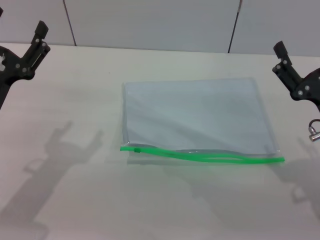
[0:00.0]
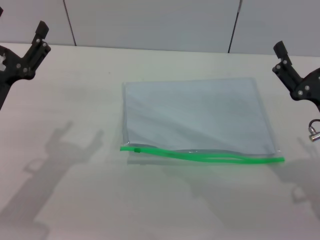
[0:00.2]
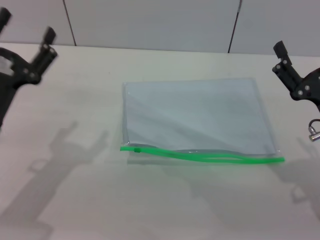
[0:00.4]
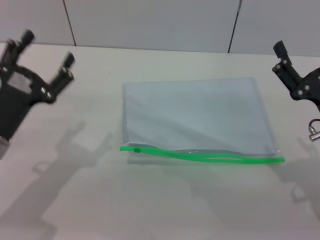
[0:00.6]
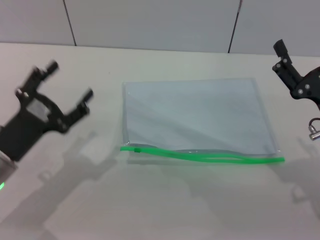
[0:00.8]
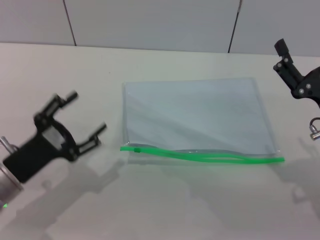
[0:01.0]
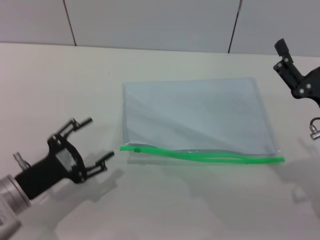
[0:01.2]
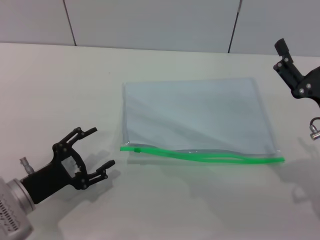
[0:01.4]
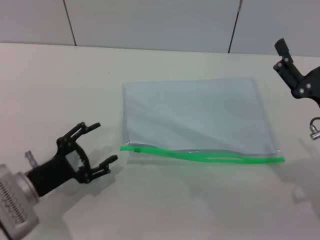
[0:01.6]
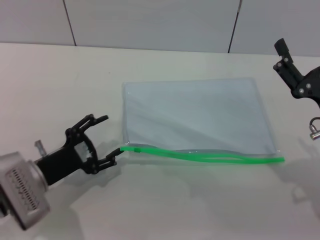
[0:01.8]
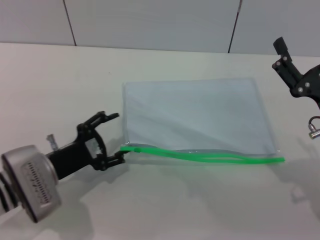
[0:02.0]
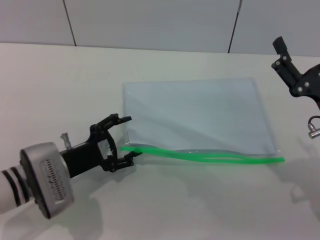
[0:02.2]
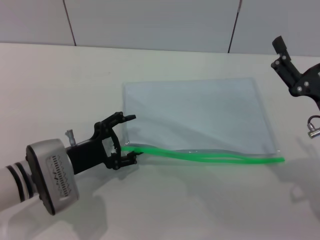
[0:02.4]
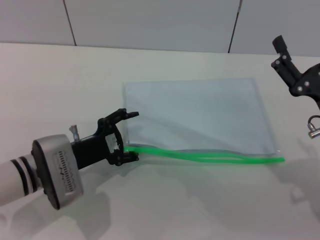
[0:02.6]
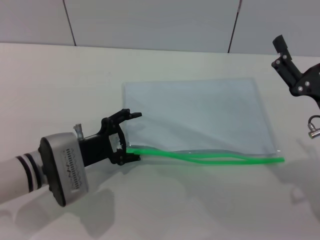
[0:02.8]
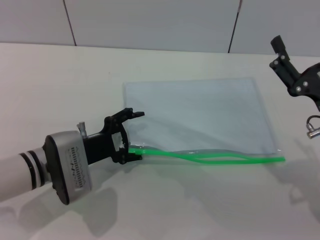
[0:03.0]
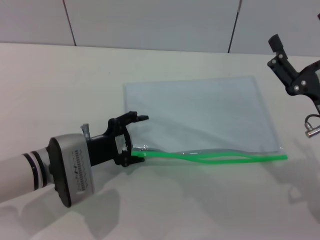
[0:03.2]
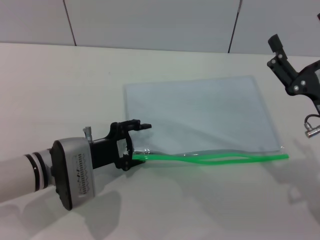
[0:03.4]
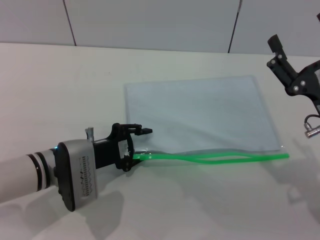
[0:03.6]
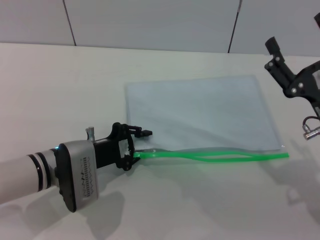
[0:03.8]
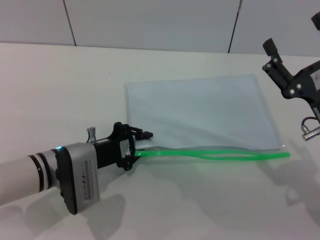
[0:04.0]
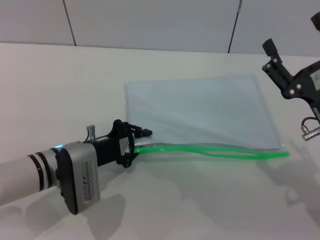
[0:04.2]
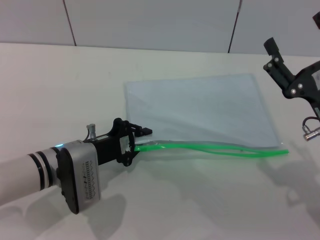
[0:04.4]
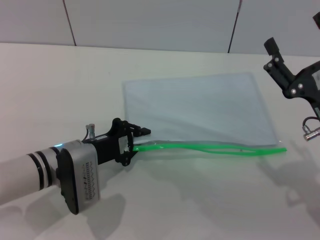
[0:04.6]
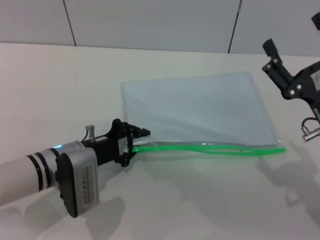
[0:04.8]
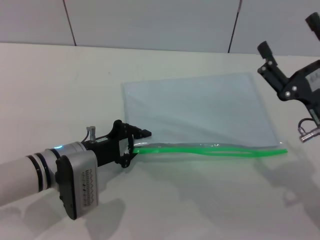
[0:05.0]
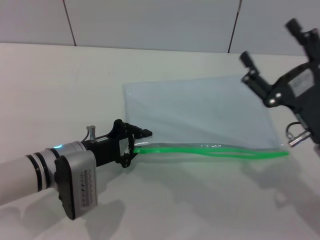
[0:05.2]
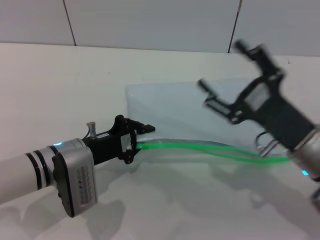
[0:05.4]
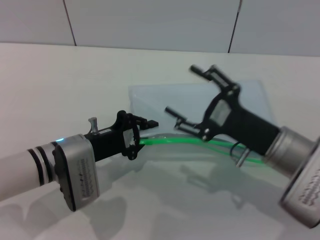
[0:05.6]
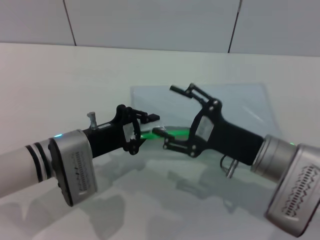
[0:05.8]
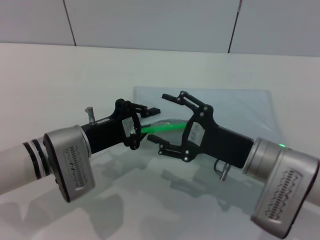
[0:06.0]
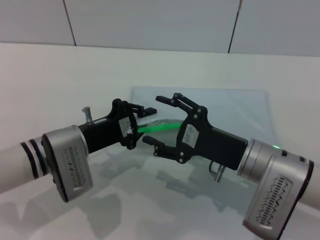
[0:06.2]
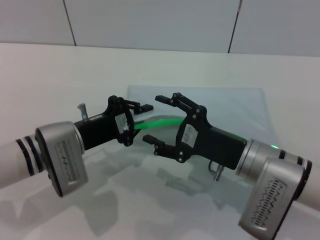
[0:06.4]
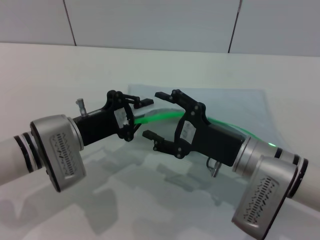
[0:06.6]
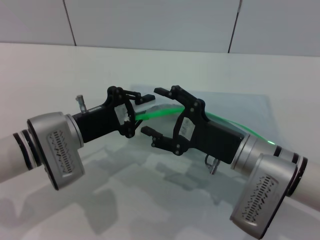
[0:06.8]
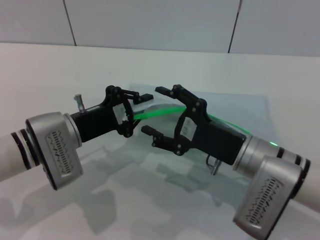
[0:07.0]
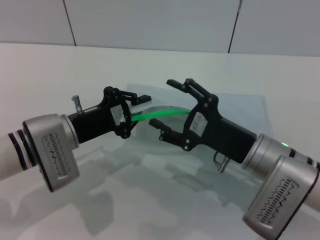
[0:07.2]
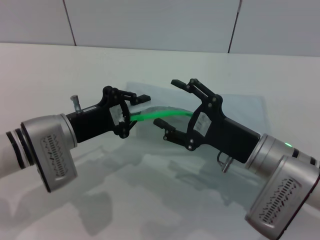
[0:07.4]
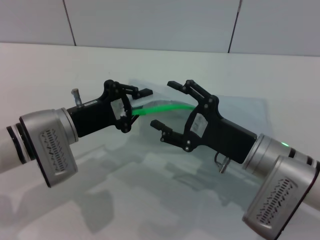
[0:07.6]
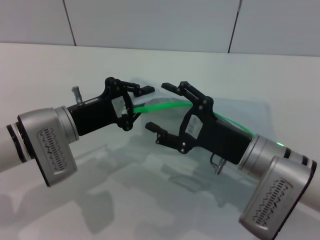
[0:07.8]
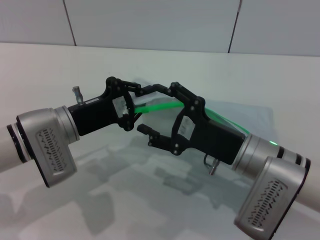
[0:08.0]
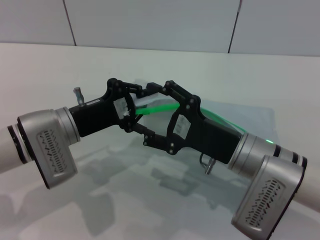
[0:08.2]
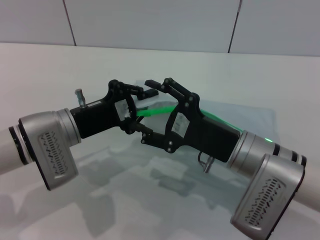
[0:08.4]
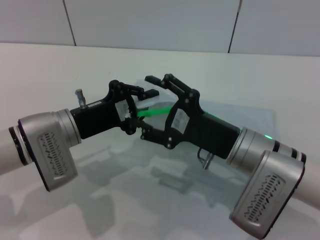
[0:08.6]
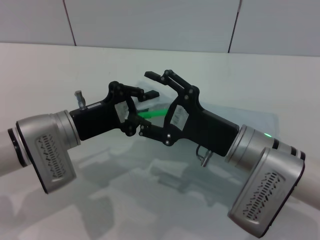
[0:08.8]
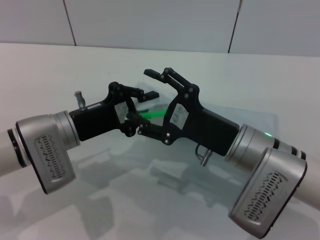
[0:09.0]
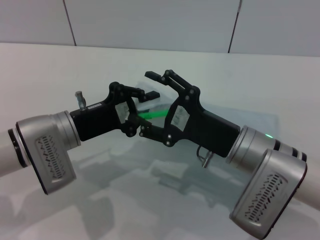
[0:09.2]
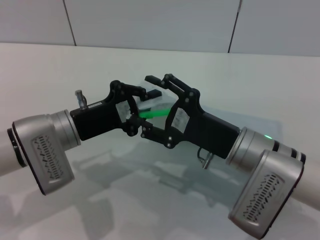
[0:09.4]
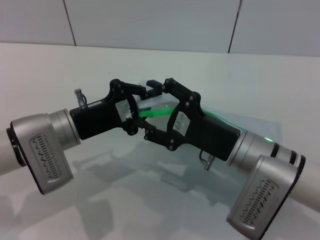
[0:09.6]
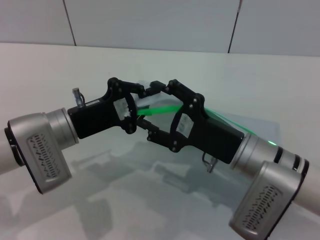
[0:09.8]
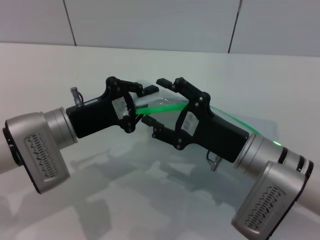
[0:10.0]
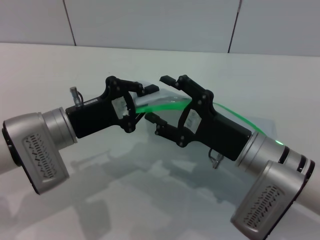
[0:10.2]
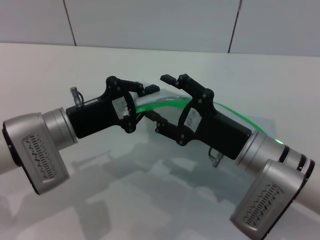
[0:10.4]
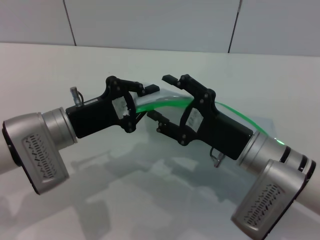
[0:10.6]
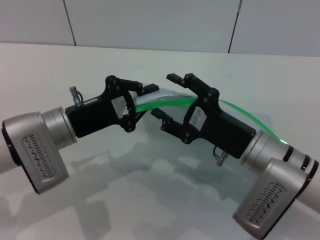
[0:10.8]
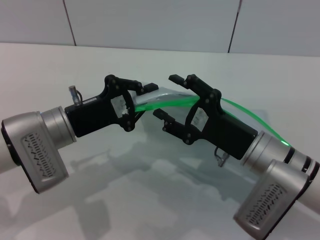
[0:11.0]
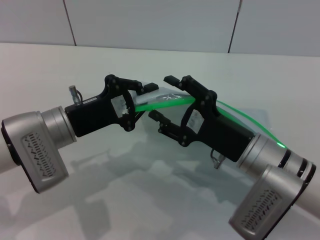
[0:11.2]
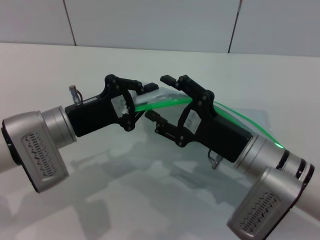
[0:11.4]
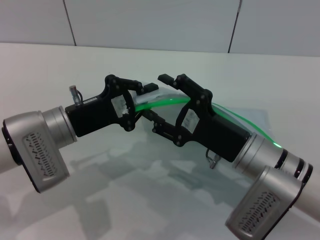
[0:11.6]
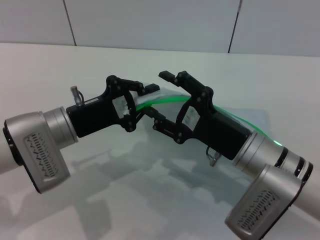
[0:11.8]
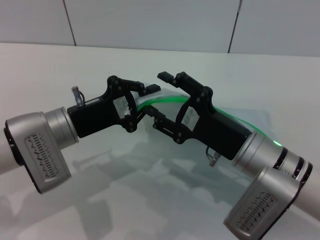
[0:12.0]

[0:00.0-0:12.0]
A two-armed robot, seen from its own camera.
Step, 0:00.0 to 0:05.6: Pick up the transparent plastic bag with the left gripper.
0:00.0 to 0:01.6: The left gripper is displaced downward by approximately 10 cm.
0:01.6 to 0:03.0: The left gripper travels forward and to the right by about 10 cm.
0:03.0 to 0:04.4: The left gripper closes up.
0:04.4 to 0:06.0: The right gripper goes about 10 cm to the left.
0:07.6 to 0:10.4: There are only small adjustments of the grippers.
0:10.4 to 0:12.0: The two grippers keep their place.

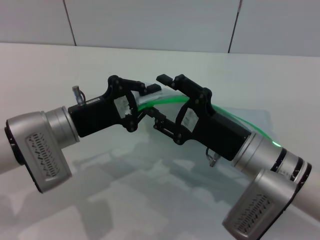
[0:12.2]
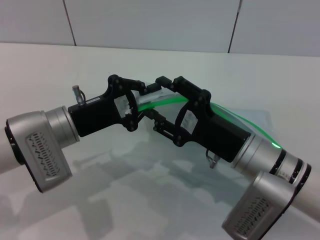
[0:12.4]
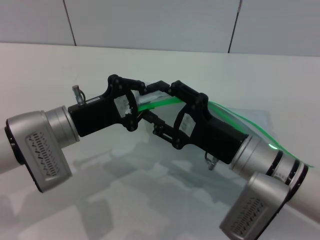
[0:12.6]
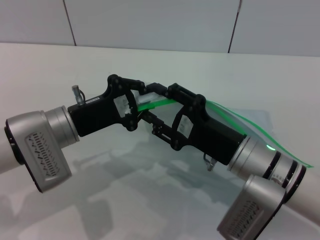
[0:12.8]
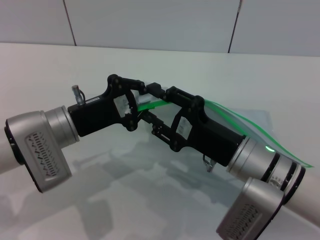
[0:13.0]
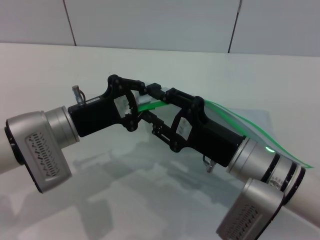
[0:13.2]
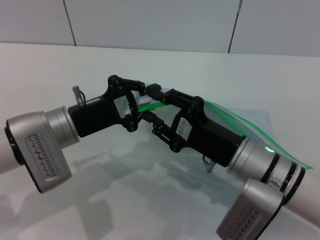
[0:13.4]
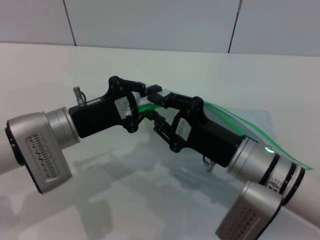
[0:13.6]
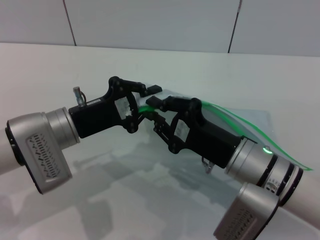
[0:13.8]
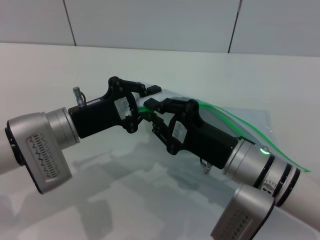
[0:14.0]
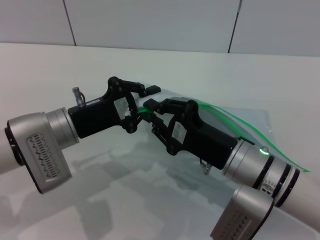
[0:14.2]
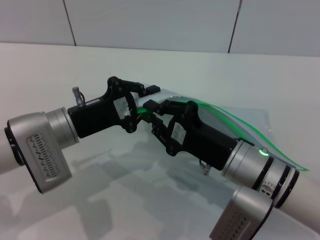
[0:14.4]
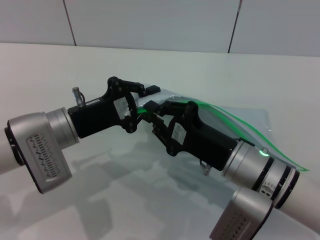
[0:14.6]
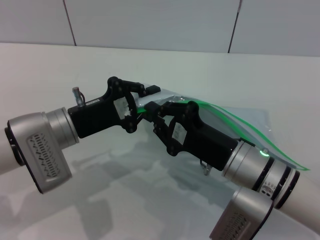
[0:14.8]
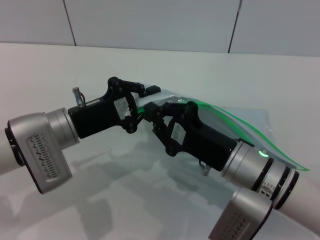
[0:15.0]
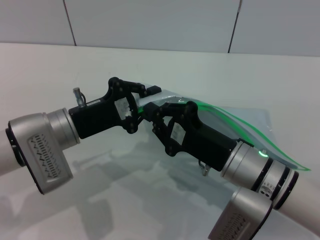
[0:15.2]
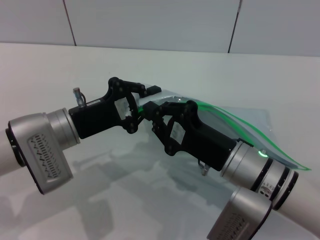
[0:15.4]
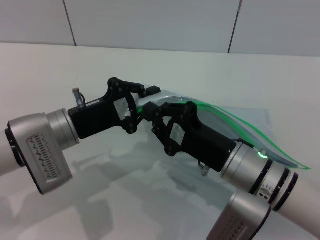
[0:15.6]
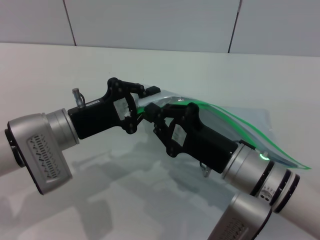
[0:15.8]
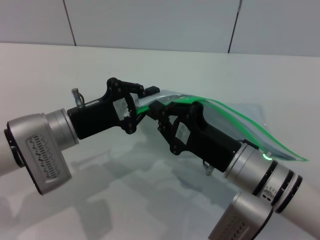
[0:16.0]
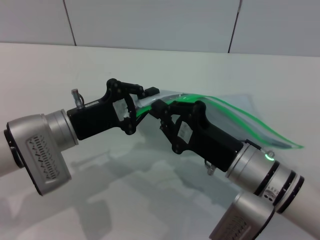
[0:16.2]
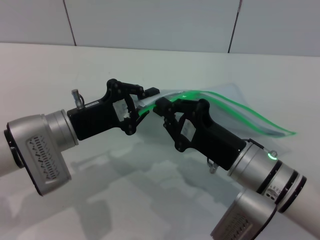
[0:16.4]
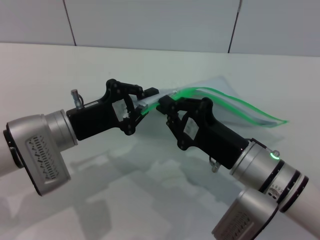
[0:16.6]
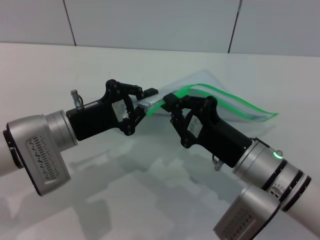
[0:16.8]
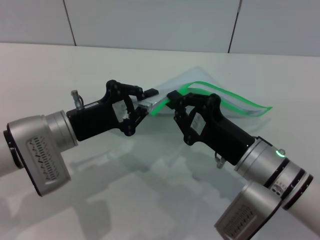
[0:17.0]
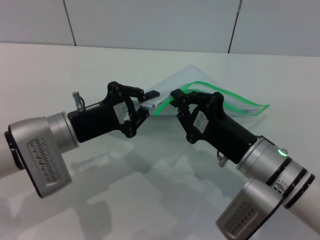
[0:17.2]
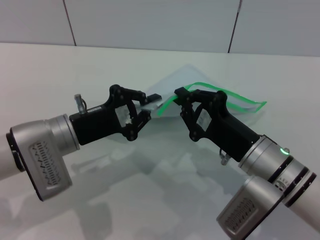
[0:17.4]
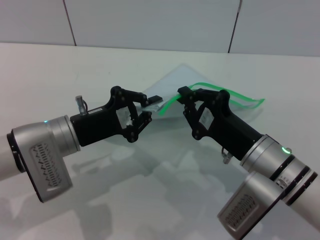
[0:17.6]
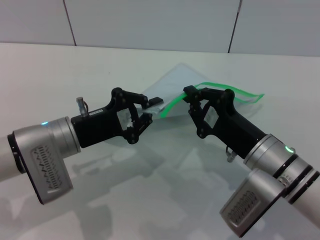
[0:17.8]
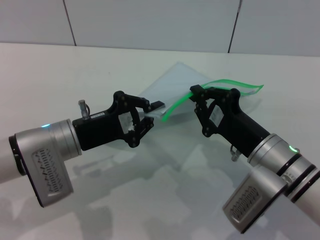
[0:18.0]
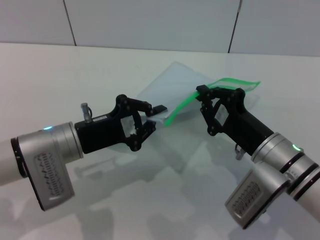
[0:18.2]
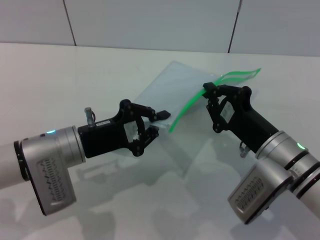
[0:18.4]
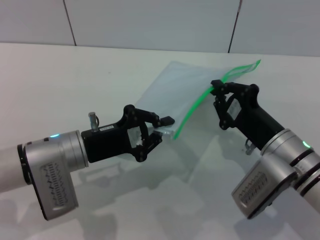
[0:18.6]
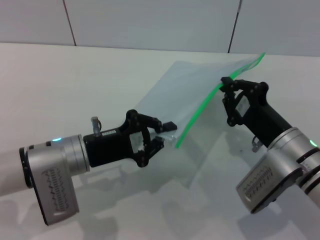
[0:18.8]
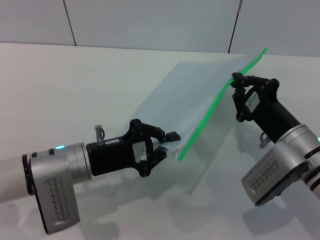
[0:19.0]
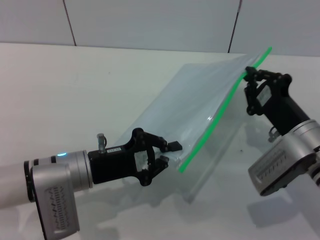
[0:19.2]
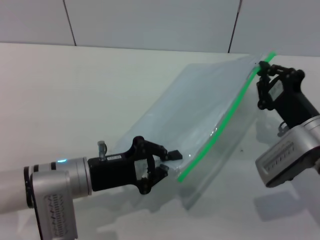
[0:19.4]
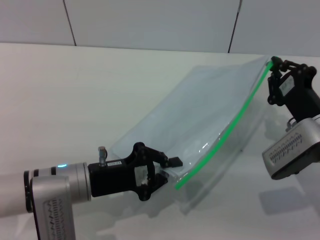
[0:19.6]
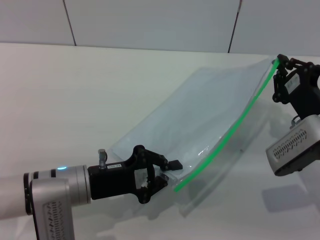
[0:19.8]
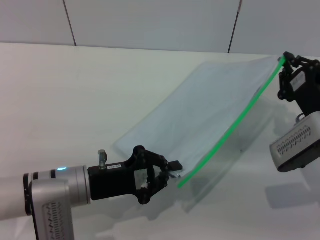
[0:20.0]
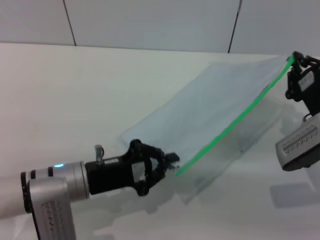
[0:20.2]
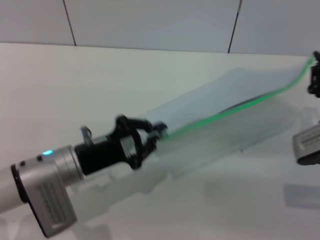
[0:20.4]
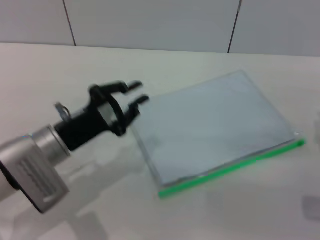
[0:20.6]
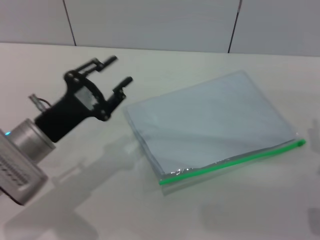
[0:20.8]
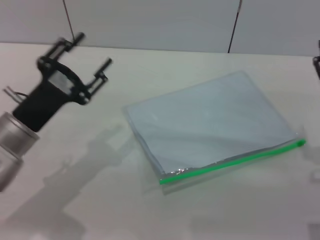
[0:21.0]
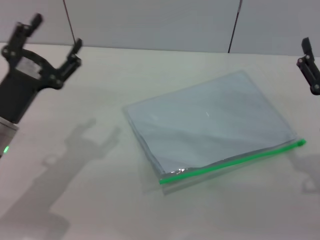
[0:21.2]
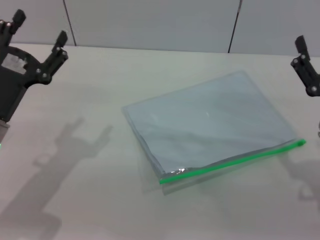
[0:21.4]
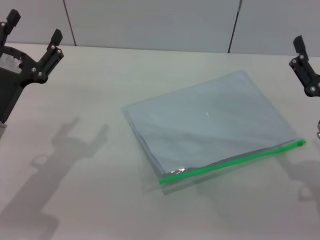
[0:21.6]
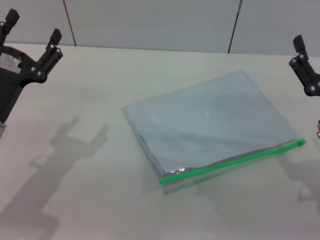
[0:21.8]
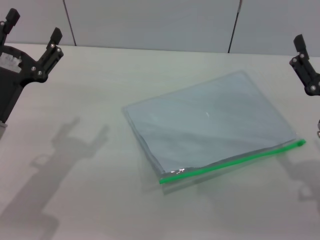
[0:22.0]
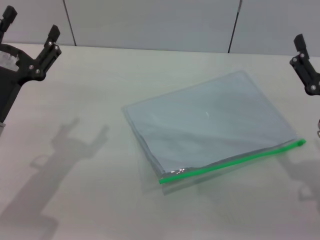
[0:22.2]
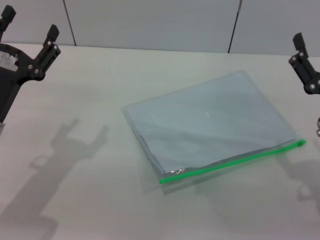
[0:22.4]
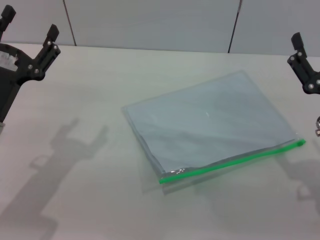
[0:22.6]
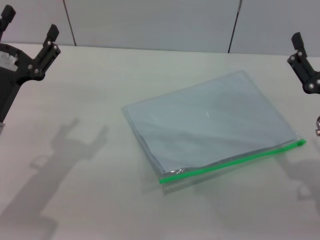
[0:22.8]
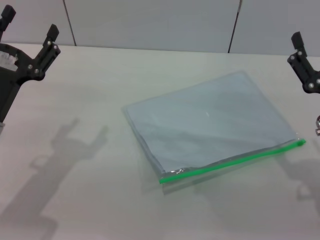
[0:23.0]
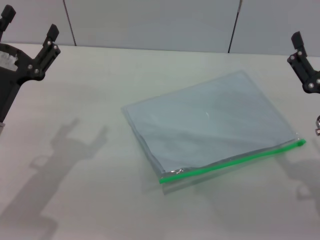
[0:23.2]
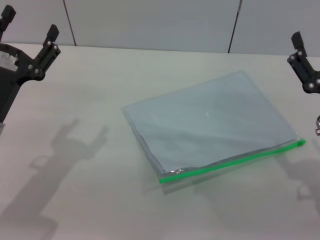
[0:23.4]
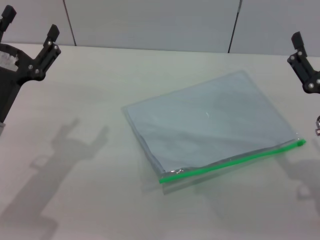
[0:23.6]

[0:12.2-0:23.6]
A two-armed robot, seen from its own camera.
Step, 0:12.2 to 0:20.2: Pulling up the zipper on the transparent plastic bag with the right gripper to close it.
Step, 0:20.4 to 0:20.6: Place the transparent plastic bag.
0:12.2 to 0:13.6: The right gripper closes.
0:13.6 to 0:15.0: The right gripper closes.
0:15.0 to 0:16.4: Both grippers stay about where they are.
0:17.8 to 0:19.4: The left gripper shifts by about 5 cm. The right gripper travels to the right by roughly 5 cm.
0:19.4 to 0:20.8: The right gripper heads to the right, covering approximately 5 cm.
0:20.8 to 0:22.2: The right gripper opens its fingers; the left gripper opens.
0:22.2 to 0:23.6: Both grippers stay put.
